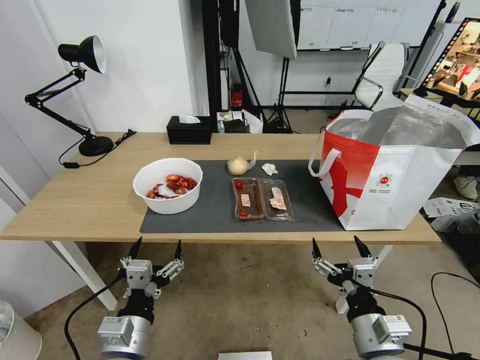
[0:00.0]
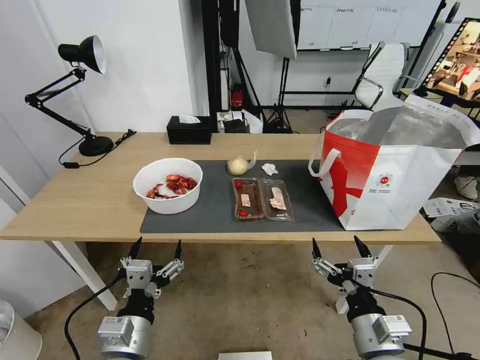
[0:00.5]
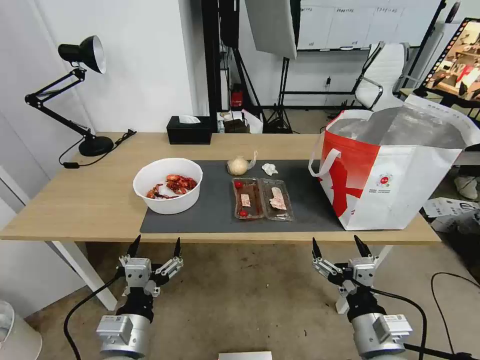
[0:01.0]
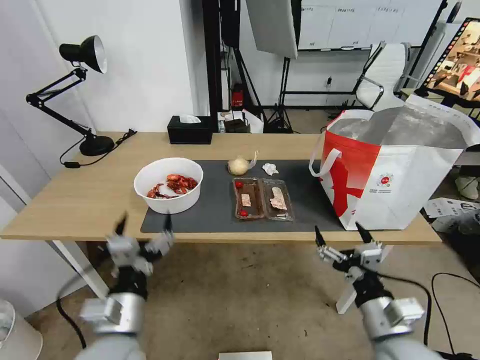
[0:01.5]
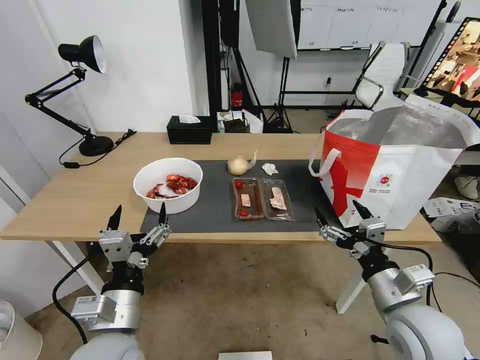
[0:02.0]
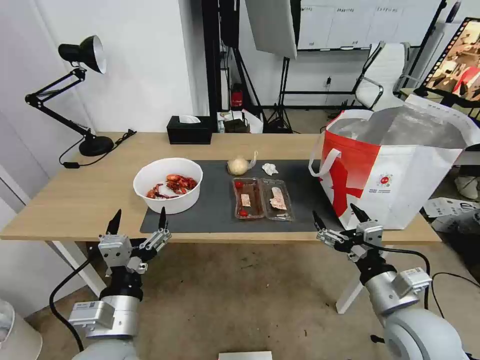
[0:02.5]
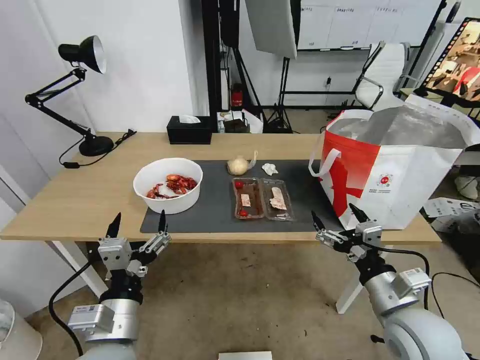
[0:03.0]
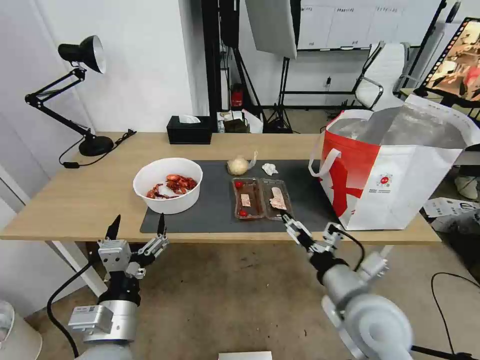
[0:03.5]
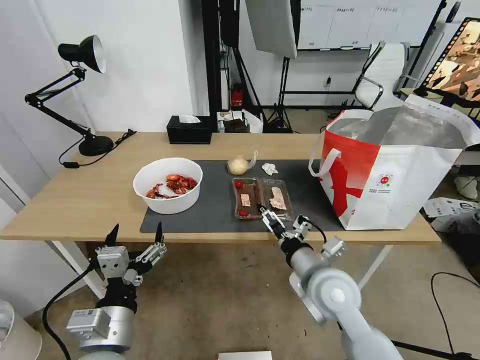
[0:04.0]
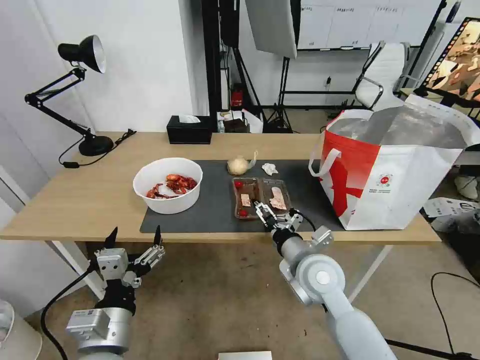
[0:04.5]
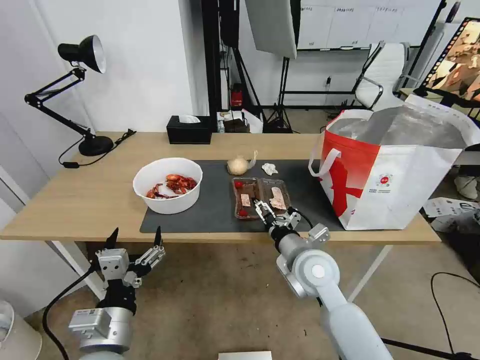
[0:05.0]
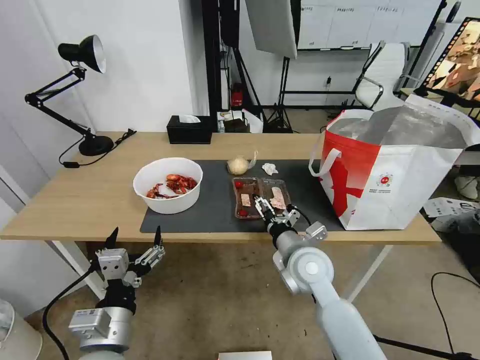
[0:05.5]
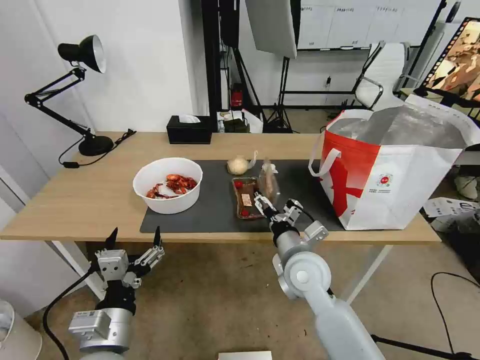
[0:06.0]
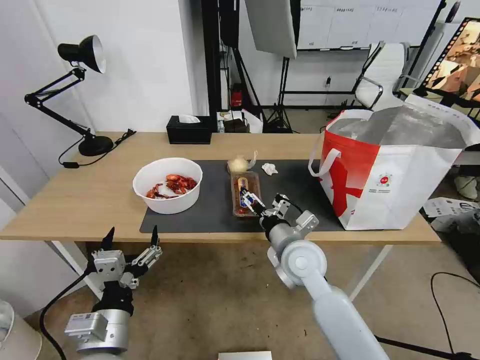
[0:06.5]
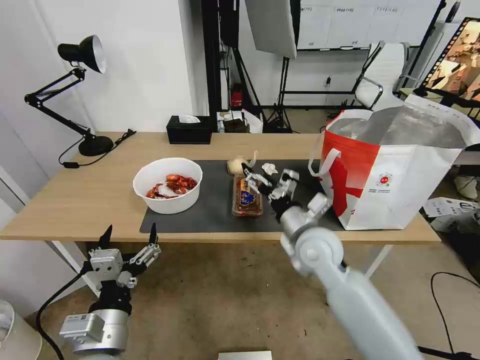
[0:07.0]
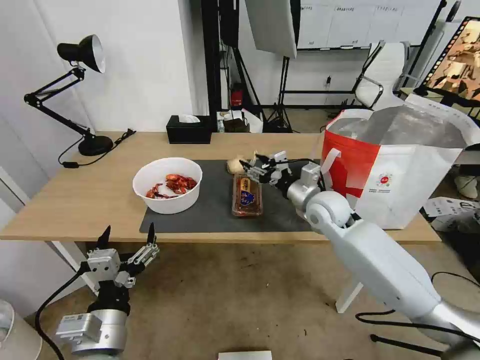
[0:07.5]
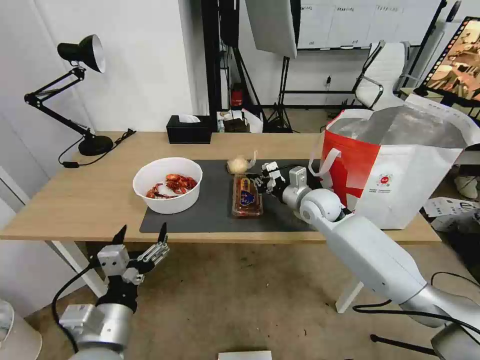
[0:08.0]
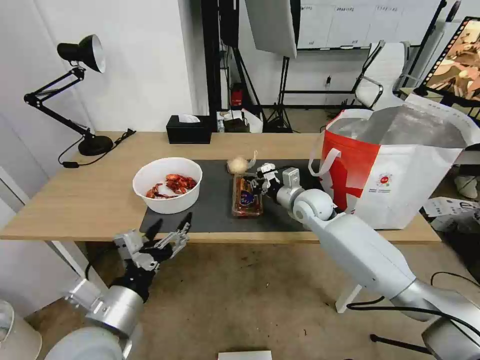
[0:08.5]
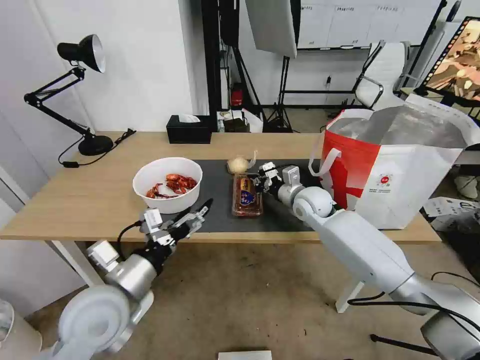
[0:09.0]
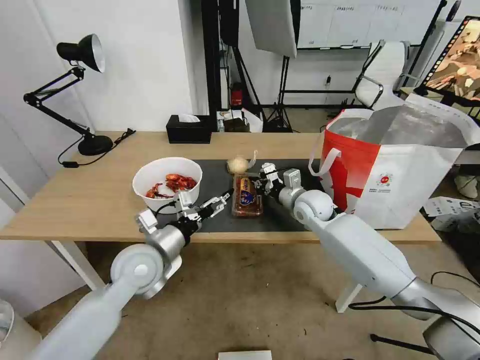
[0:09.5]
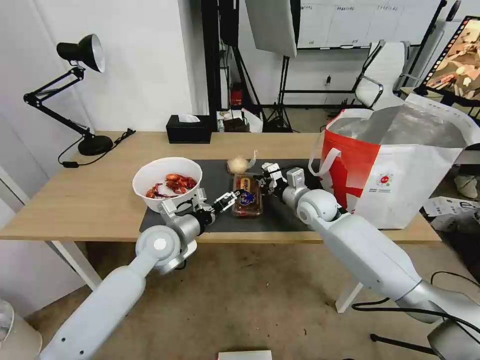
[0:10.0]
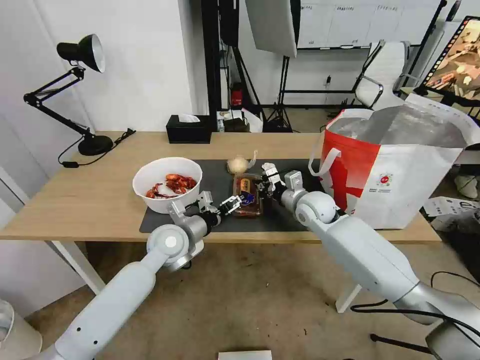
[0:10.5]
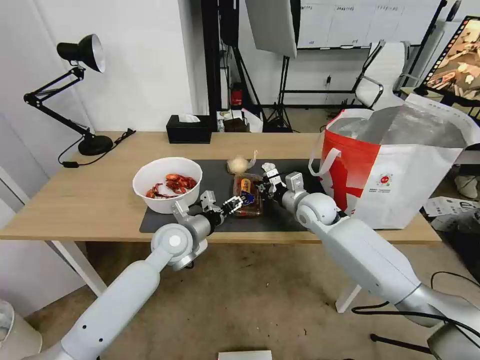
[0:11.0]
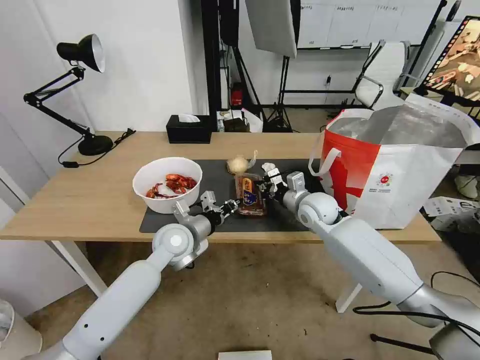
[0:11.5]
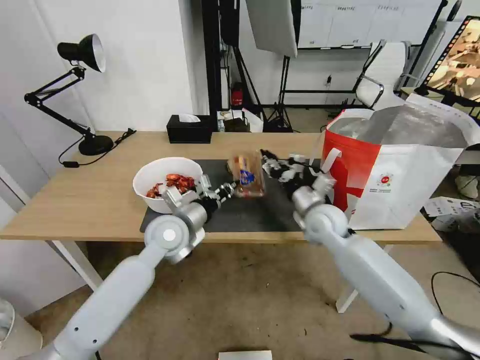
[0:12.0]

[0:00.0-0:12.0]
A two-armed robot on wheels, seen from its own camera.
Task of the whole recording: Pick up the trash from the table and place it into the takeout bag.
0:02.0 to 0:04.0: The right gripper moves to the left and forward, some 15 cm.
0:04.0 to 0:06.0: The right gripper shifts some 5 cm forward.
0:06.0 to 0:08.0: The right gripper moves forward and to the right, roughly 20 cm, and closes its fingers.
0:08.0 to 0:10.0: The left gripper heads forward, covering about 25 cm.
0:10.0 to 0:12.0: The left gripper closes.

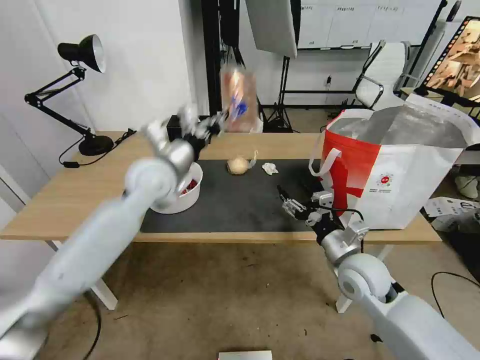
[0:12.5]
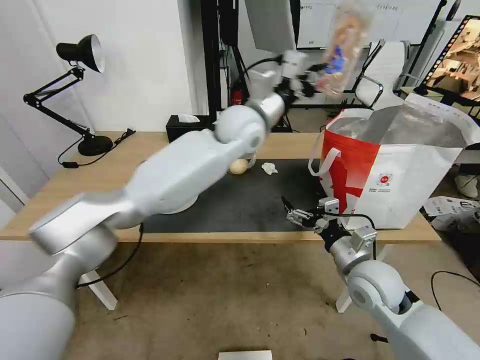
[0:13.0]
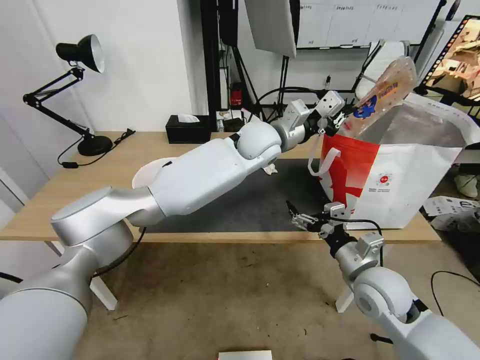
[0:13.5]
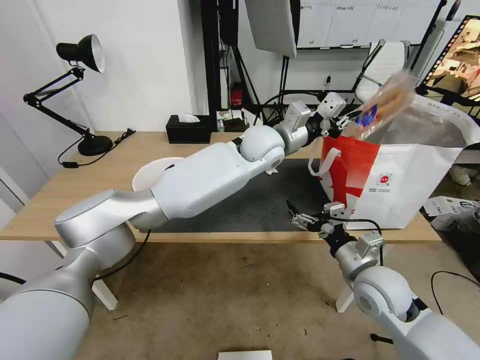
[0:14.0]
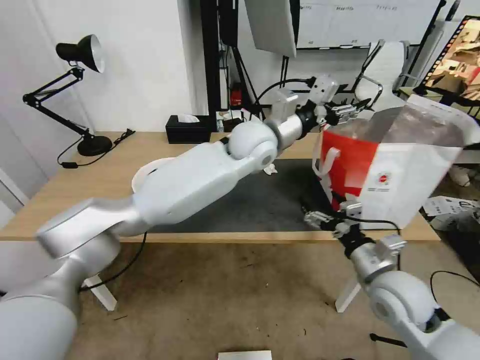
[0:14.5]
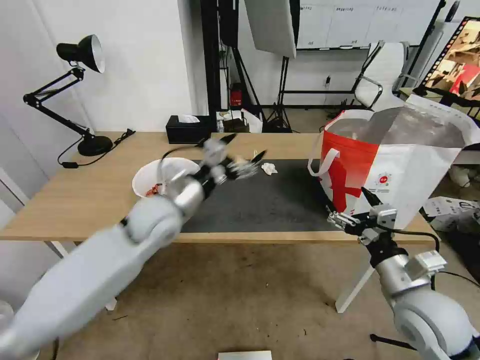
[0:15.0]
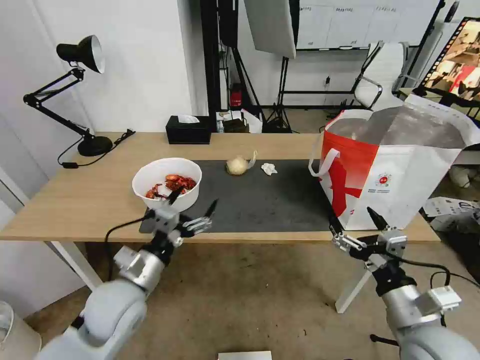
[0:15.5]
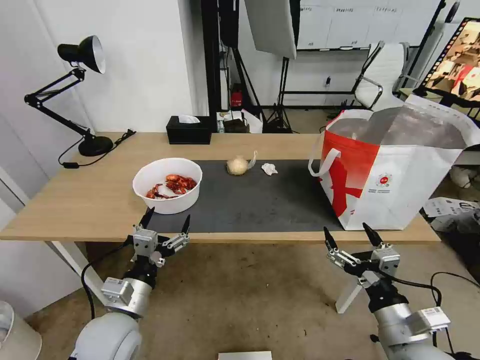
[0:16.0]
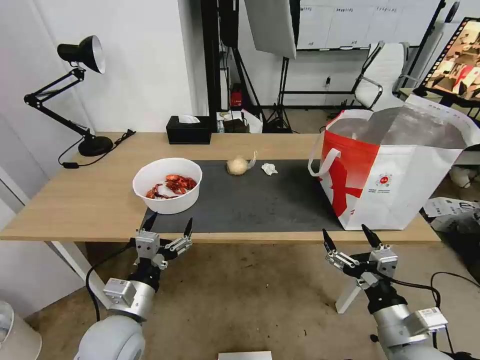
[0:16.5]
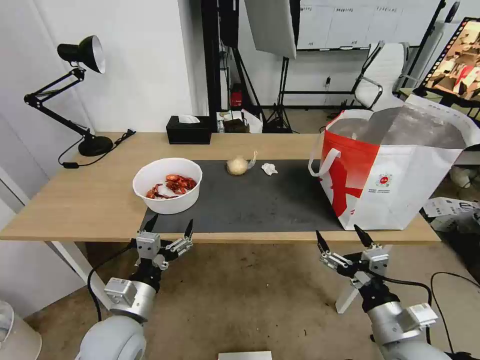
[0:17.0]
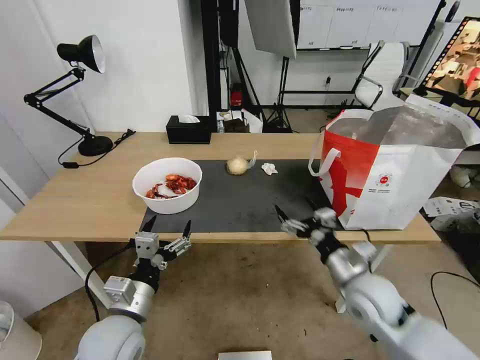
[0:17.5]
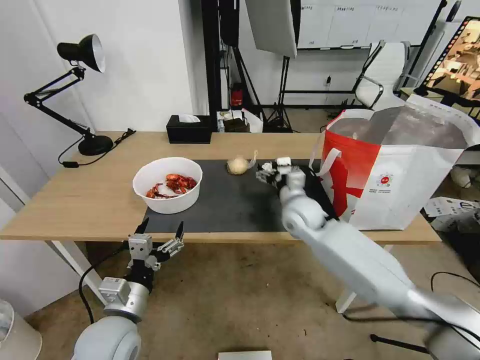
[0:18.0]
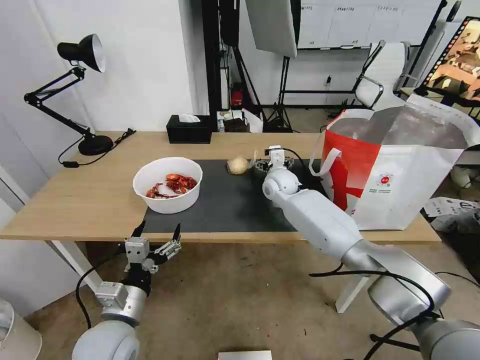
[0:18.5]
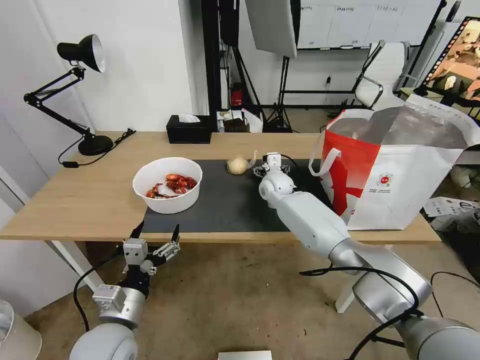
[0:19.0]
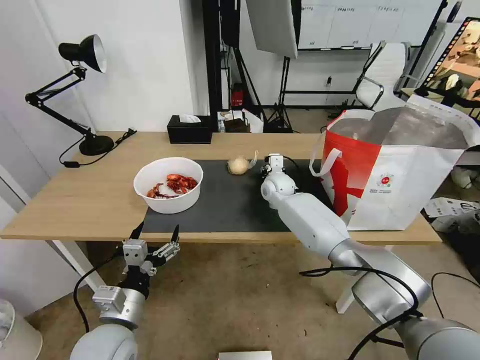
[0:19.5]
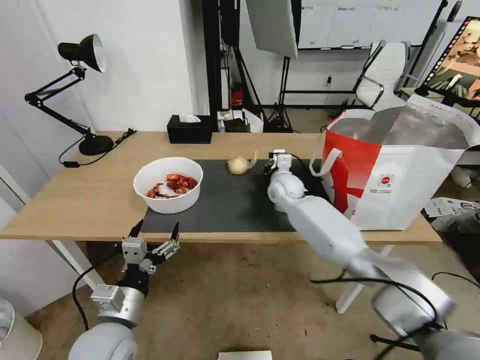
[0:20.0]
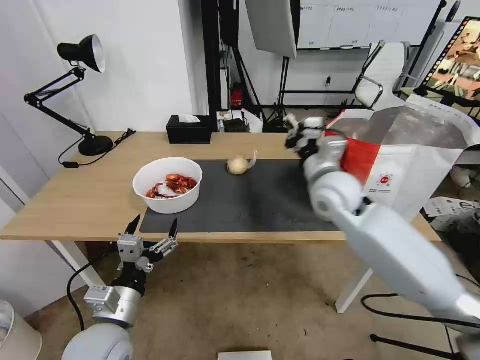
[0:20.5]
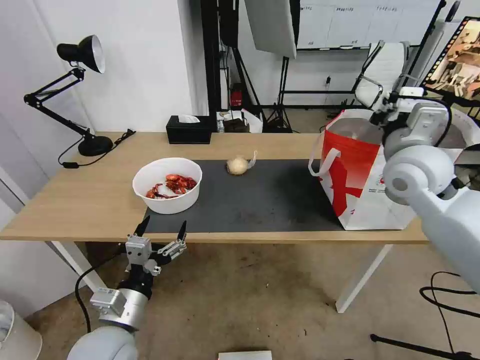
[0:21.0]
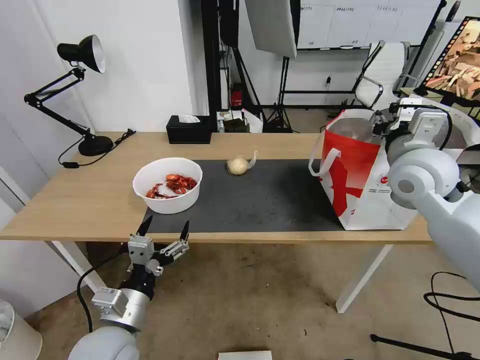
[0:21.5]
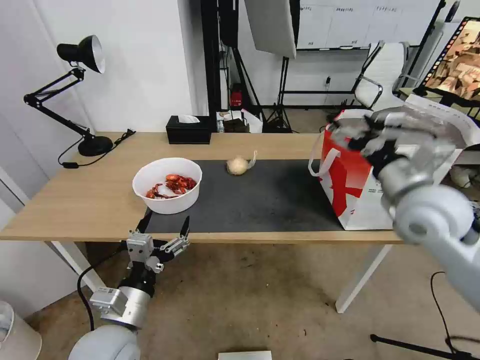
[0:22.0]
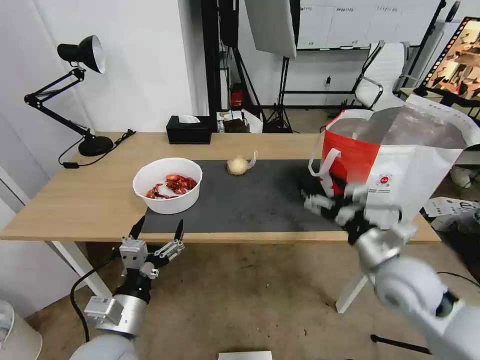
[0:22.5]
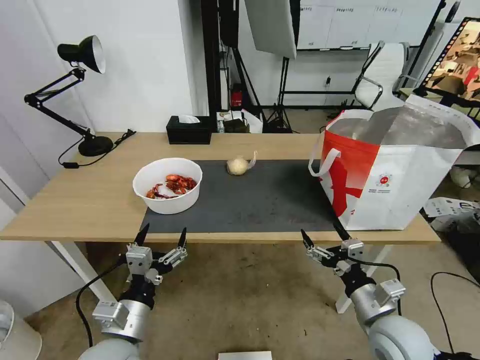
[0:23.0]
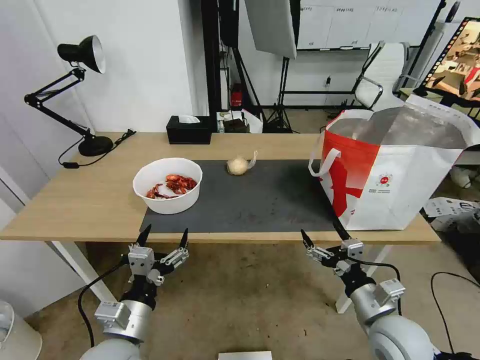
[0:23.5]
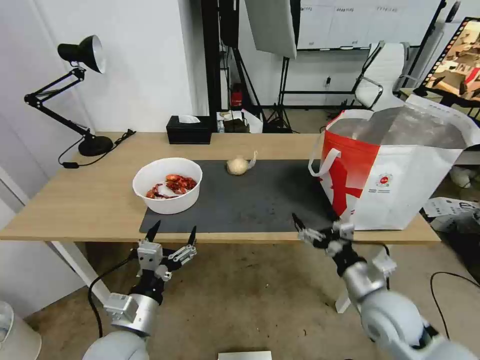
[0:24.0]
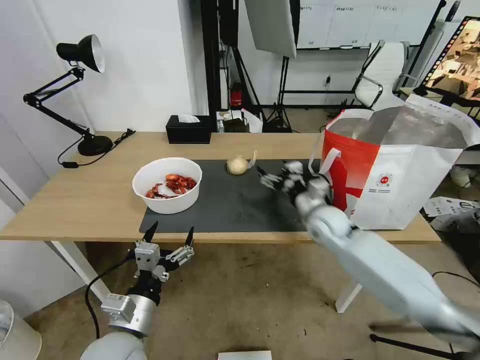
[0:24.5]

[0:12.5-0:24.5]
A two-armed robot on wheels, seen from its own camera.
Task of the whole recording: Pick up the trash from the table and place it into the takeout bag.
0:12.5 to 0:14.5: The right gripper goes approximately 5 cm backward; the left gripper heads to the right, covering approximately 20 cm, and opens up.
0:14.5 to 0:16.5: The right gripper goes roughly 10 cm backward. Meanwhile the left gripper shifts some 40 cm backward, to the left and downward.
0:16.5 to 0:18.5: The right gripper travels forward and to the left by roughly 50 cm.
0:18.5 to 0:20.5: The right gripper travels backward, upward and to the right by approximately 20 cm, and closes.
0:20.5 to 0:22.5: The right gripper is displaced backward, to the right and downward by roughly 20 cm, and opens.
0:22.5 to 0:24.5: The right gripper heads forward and to the left, covering some 20 cm.

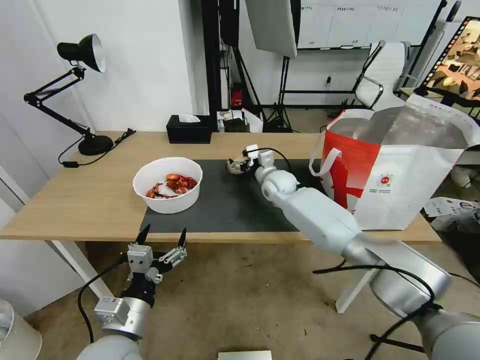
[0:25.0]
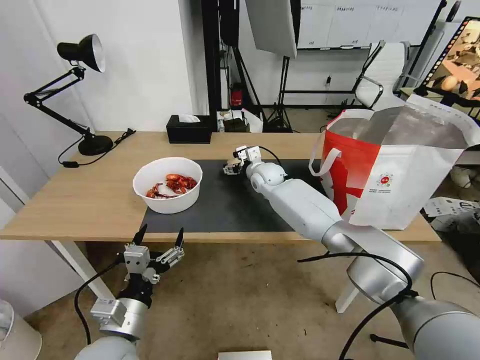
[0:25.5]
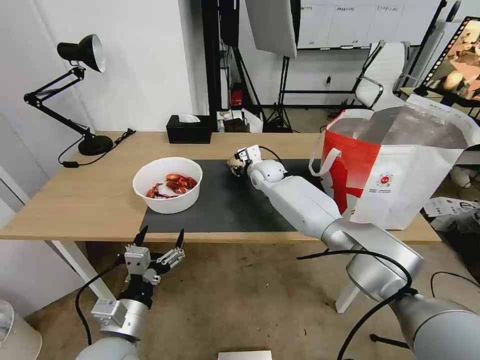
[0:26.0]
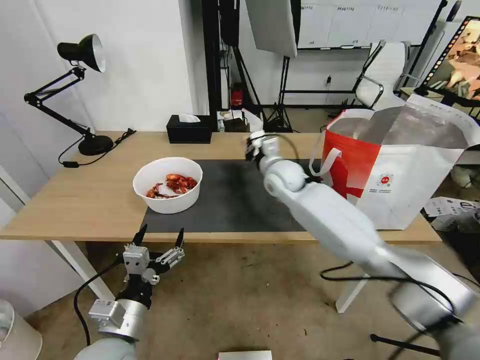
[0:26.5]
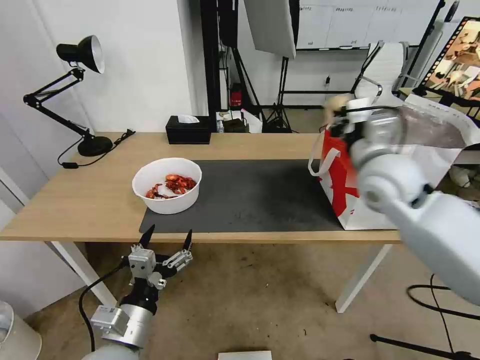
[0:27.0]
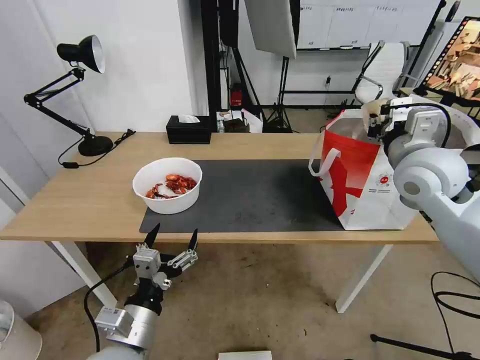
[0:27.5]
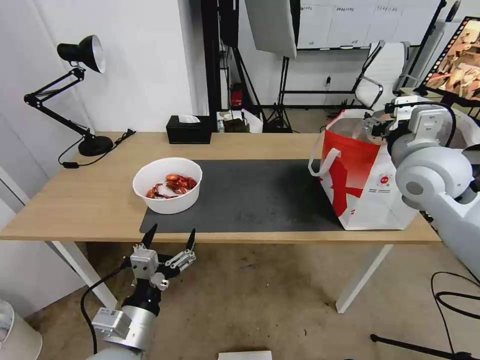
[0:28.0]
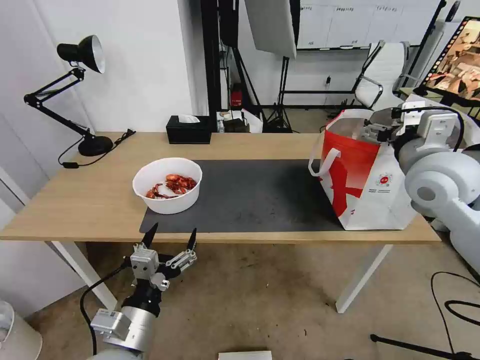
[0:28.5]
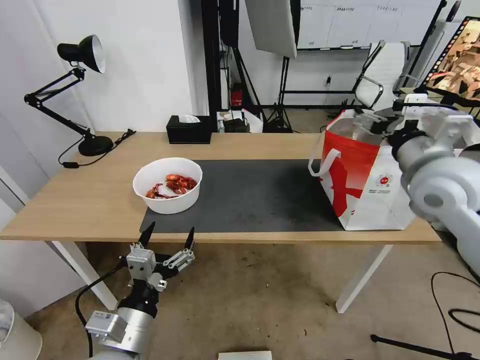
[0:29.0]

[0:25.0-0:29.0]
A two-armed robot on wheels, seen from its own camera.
Task of the whole recording: Pick up the trash from the table and place it into the takeout bag.
0:25.0 to 0:27.0: The right gripper travels upward, backward and to the right by approximately 30 cm, and closes up.
0:27.0 to 0:29.0: The right gripper travels to the right by approximately 5 cm, and opens its fingers.
